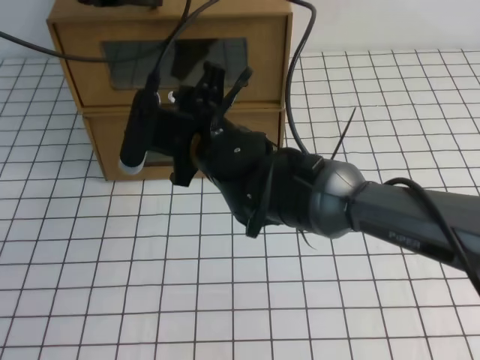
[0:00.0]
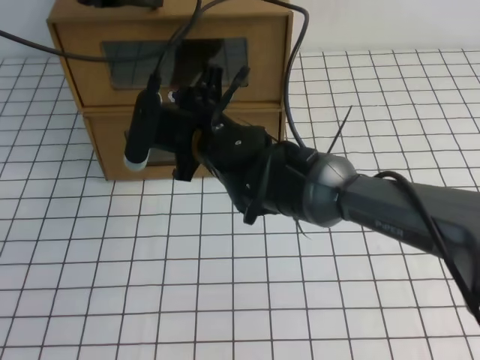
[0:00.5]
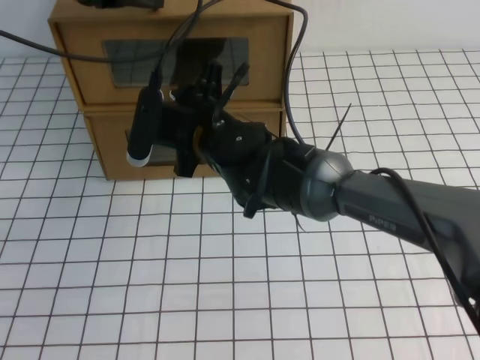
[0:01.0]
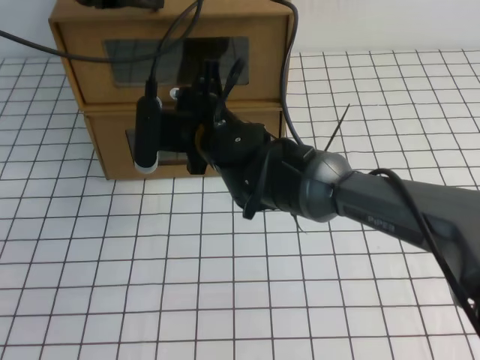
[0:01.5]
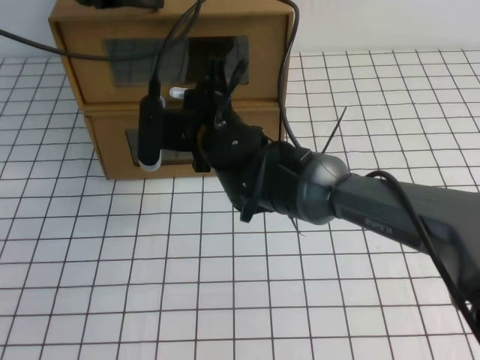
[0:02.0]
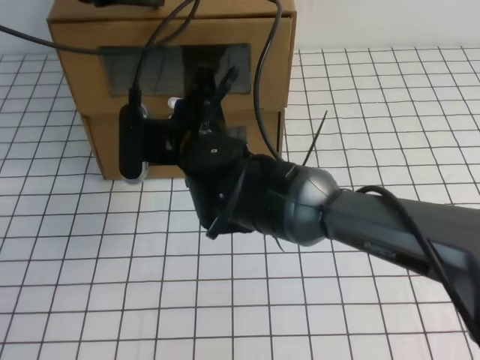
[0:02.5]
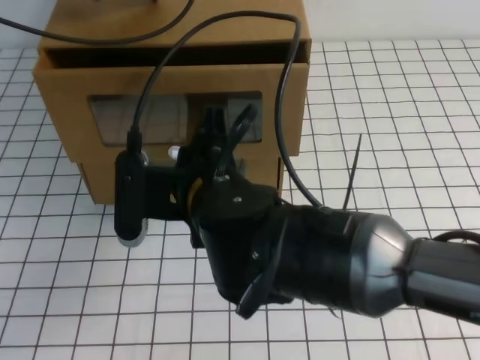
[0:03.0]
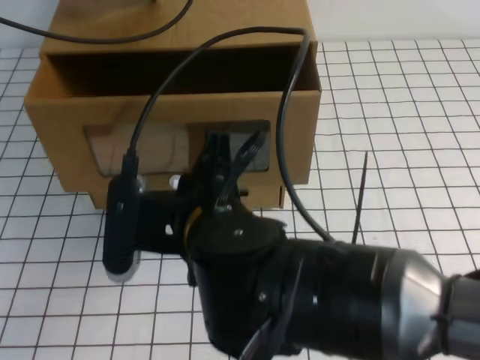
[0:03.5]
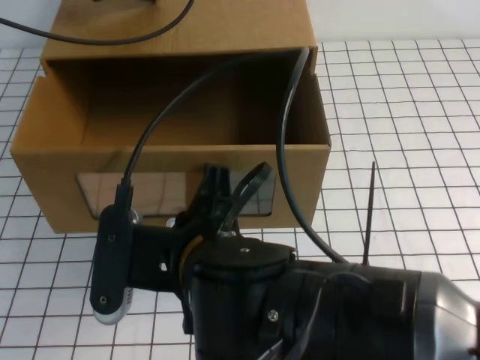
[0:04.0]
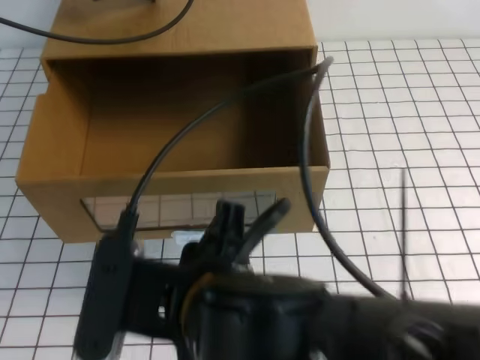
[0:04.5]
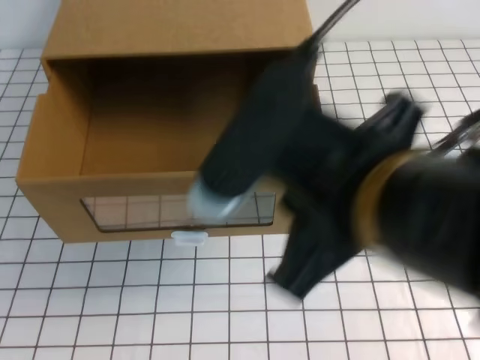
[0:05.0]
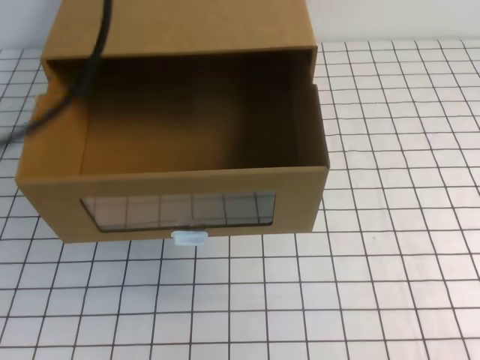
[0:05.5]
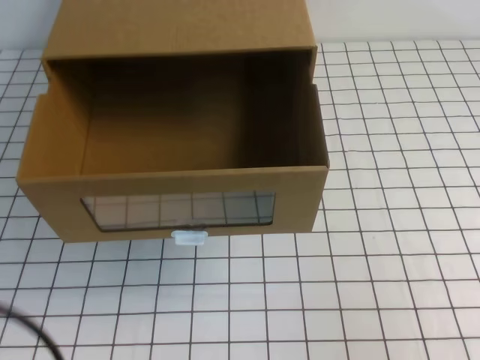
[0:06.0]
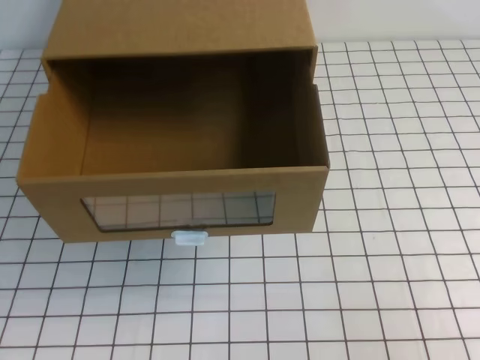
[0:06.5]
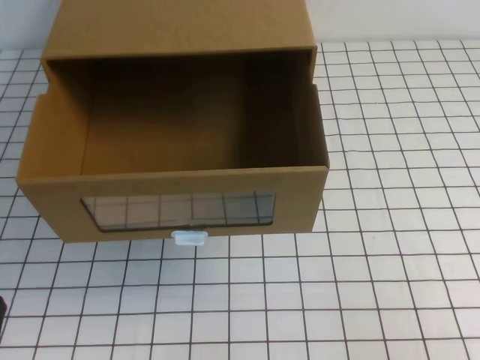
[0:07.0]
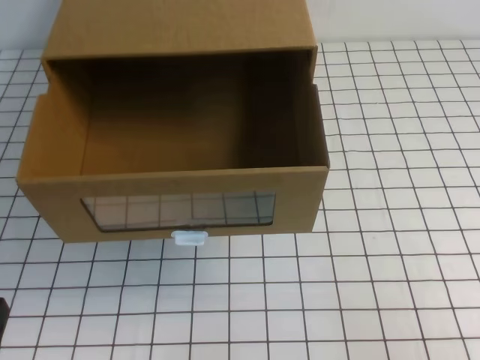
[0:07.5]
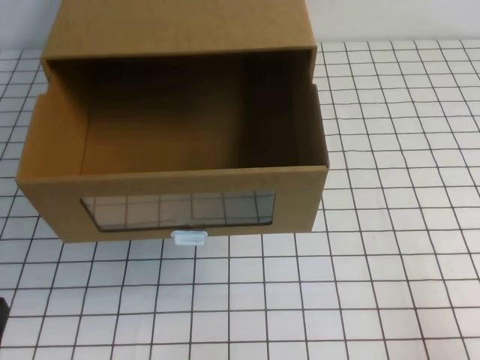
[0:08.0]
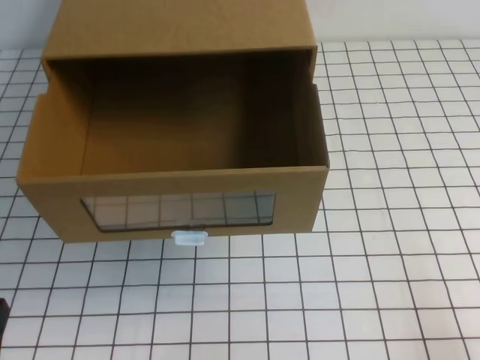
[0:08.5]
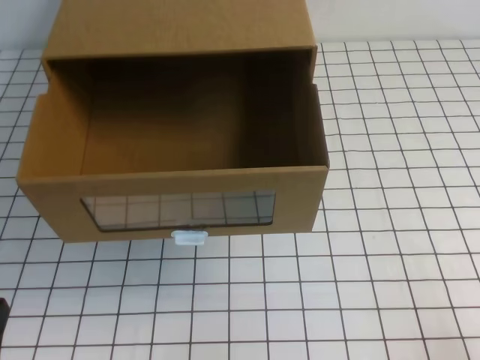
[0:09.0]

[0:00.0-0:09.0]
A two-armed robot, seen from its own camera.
Task of the whole recording: open the shoebox on the white tablecloth.
0:00.0 to 0:02.0: The right gripper closes up.
0:02.0 to 0:04.5: The right gripper moves backward, approximately 25 cm, and opens up.
0:04.5 to 0:07.0: The left gripper goes about 40 cm backward and downward, while the right gripper moves to the right, approximately 30 cm, and closes.

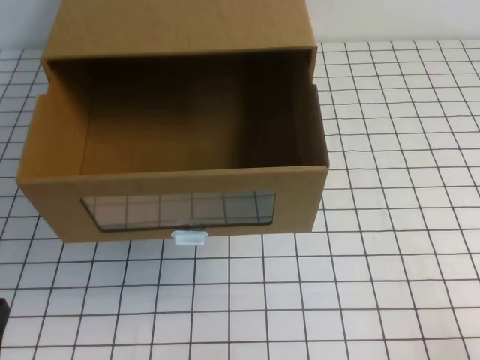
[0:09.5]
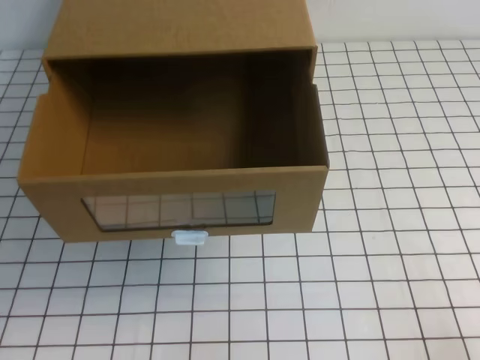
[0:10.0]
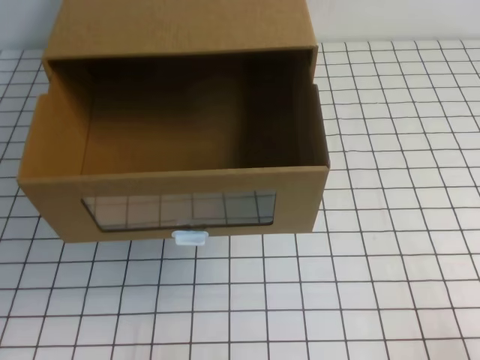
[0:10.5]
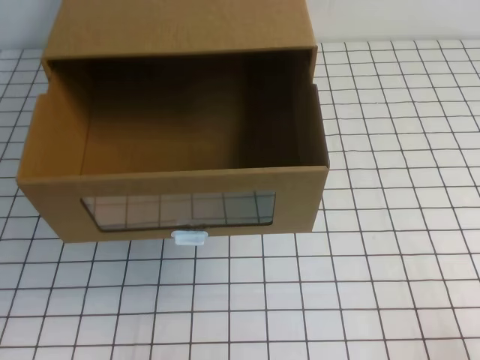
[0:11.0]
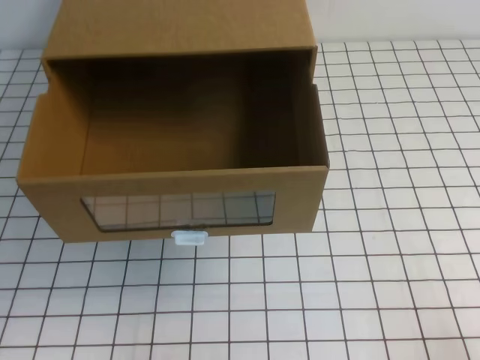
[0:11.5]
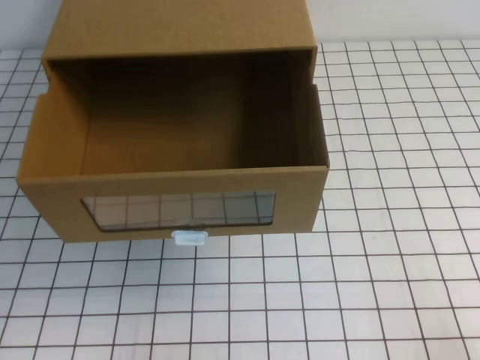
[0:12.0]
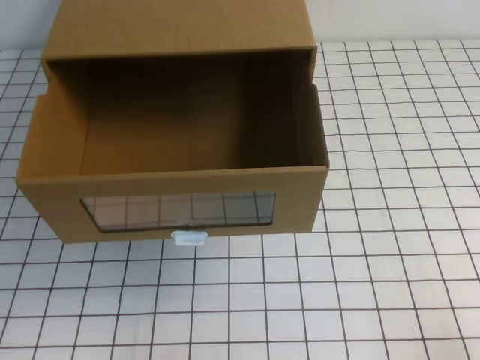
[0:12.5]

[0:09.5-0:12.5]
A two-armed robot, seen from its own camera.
Task of the whole recording: open the shoebox on the white tablecloth.
0:11.0 to 0:12.5: Both grippers stay about where they are.

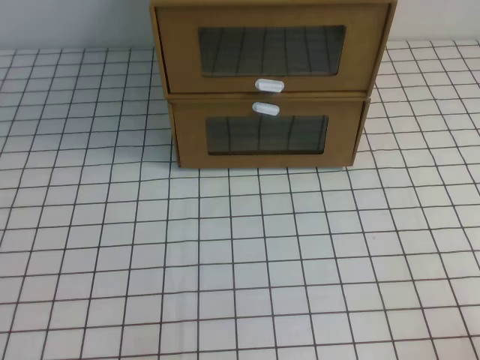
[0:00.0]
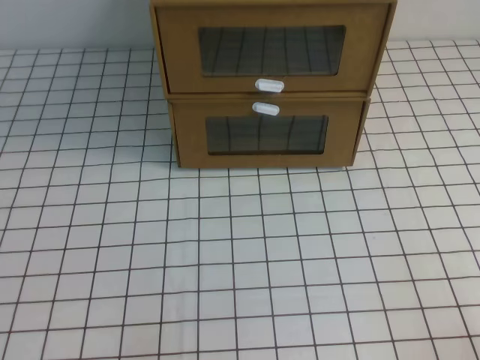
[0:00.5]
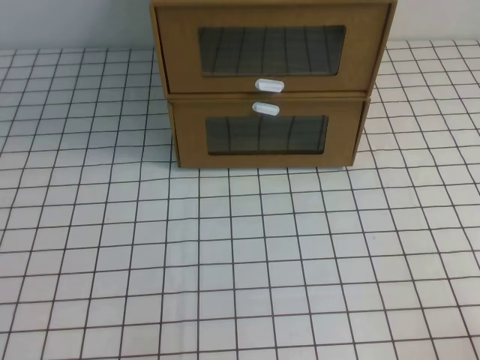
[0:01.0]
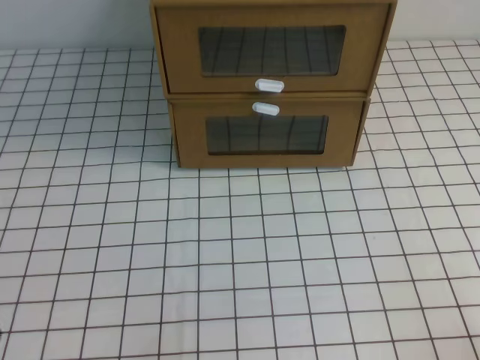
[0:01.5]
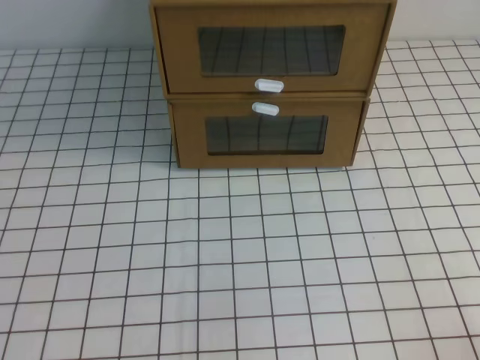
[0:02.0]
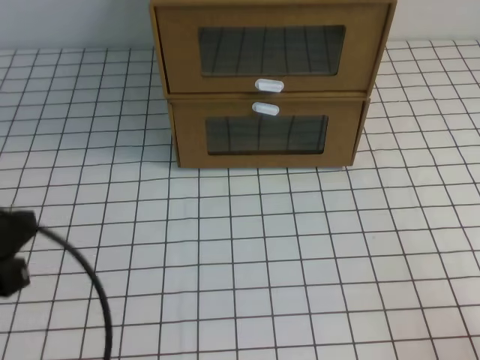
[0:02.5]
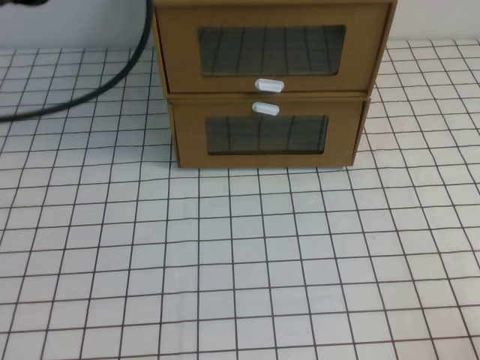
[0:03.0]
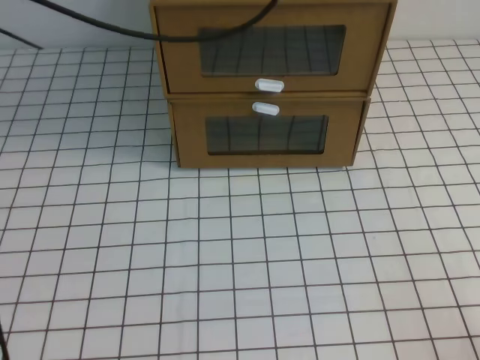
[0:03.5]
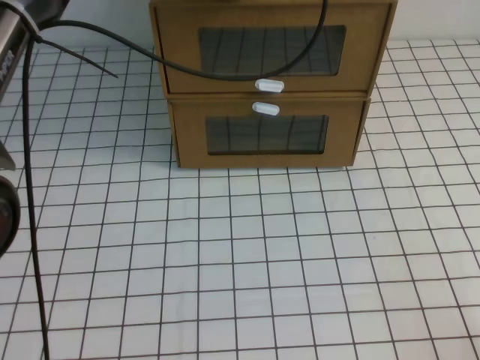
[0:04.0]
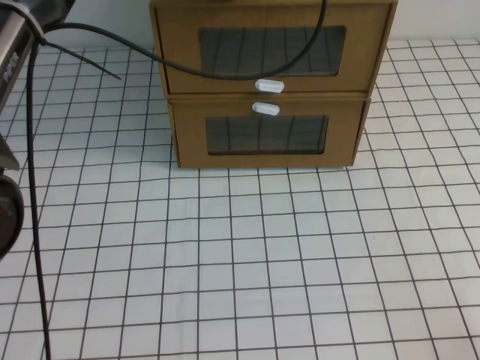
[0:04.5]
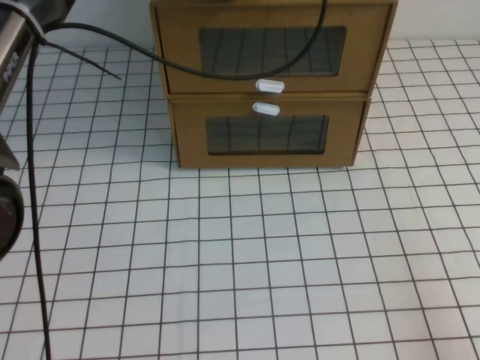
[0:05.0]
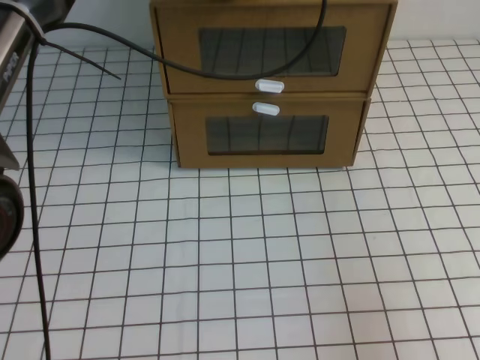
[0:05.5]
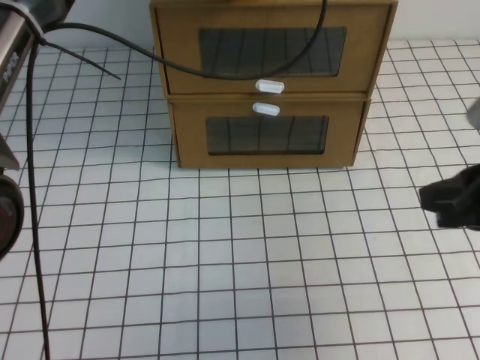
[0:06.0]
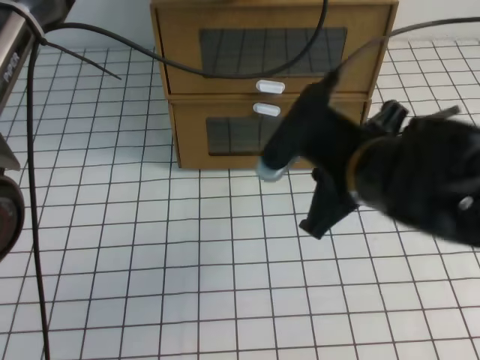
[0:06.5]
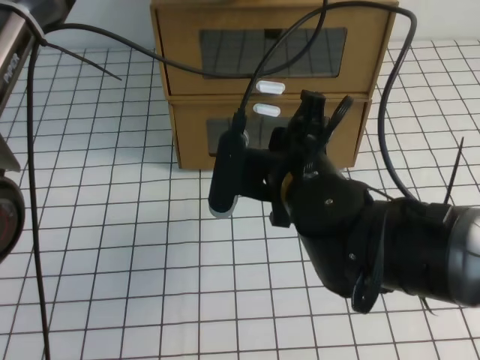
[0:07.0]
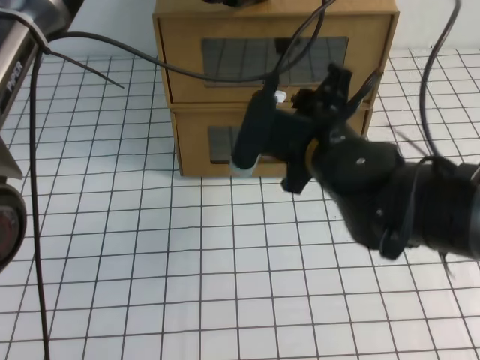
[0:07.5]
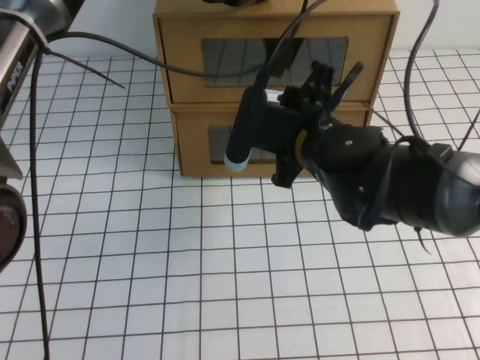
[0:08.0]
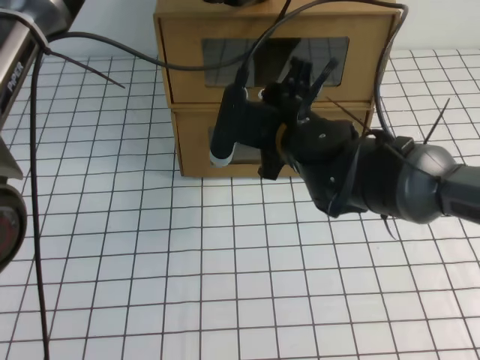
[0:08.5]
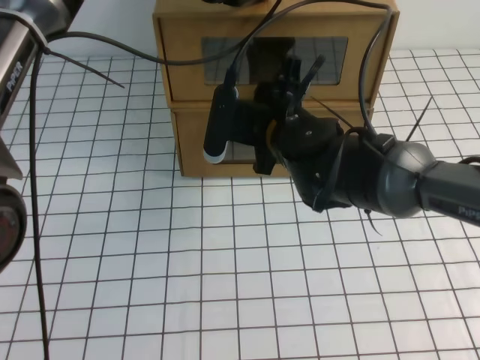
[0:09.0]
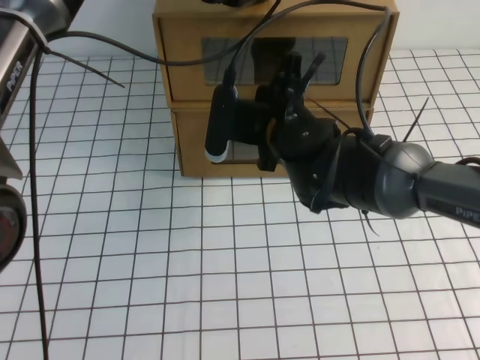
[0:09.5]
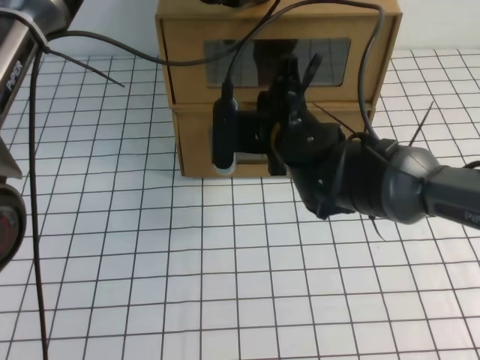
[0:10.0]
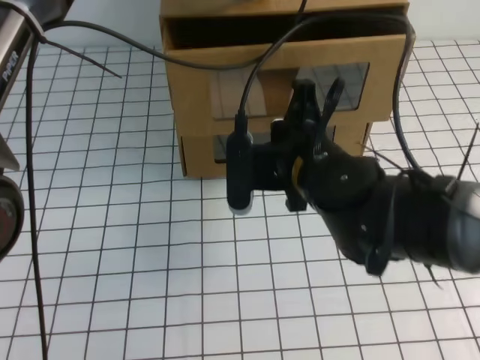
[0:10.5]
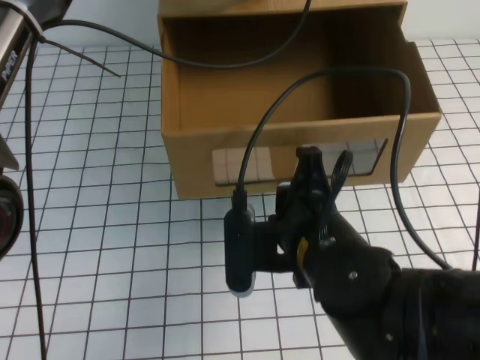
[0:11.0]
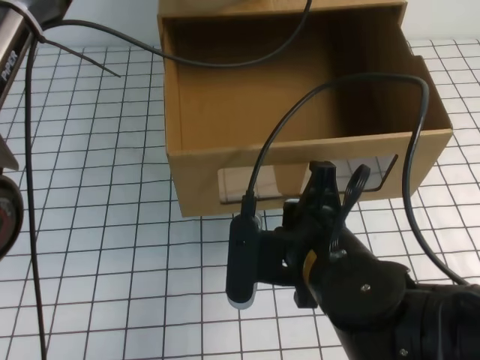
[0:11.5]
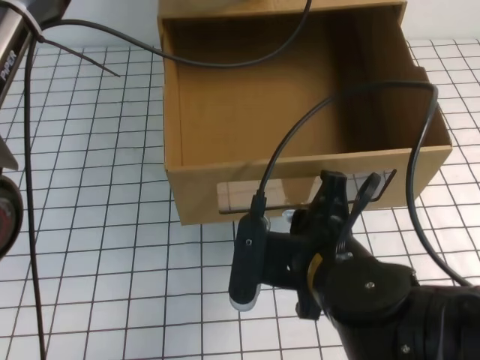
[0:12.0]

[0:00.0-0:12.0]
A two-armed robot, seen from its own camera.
Task of the whole recording: open the shoebox on the white tablecloth.
0:02.0 to 0:04.0: The left gripper shifts about 50 cm forward, to the right and upward.
0:04.0 to 0:06.0: The right gripper goes some 20 cm upward, forward and to the left.
0:06.0 to 0:08.0: The right gripper shifts roughly 25 cm to the left and forward, and opens up.
0:08.0 to 0:10.0: The right gripper closes.
0:10.0 to 0:12.0: The right gripper travels backward by some 15 cm.

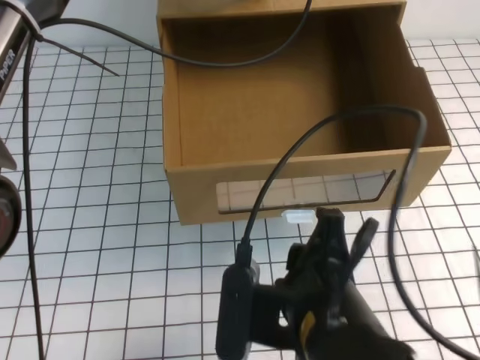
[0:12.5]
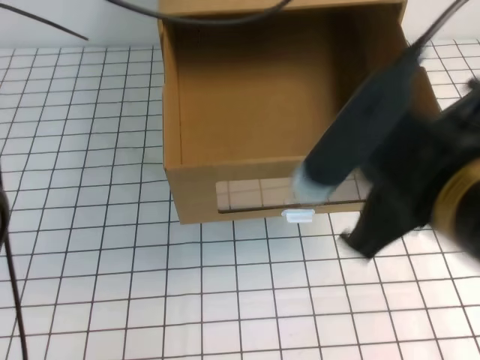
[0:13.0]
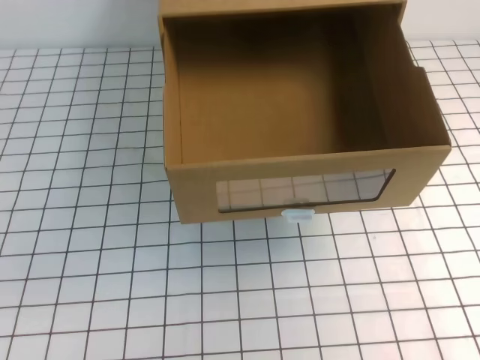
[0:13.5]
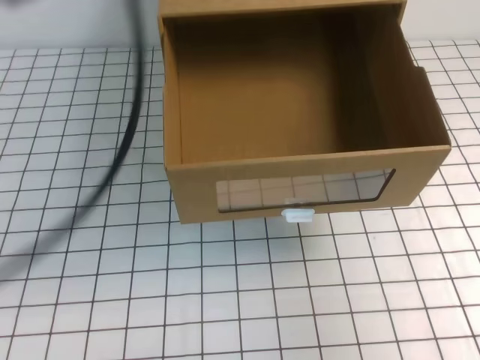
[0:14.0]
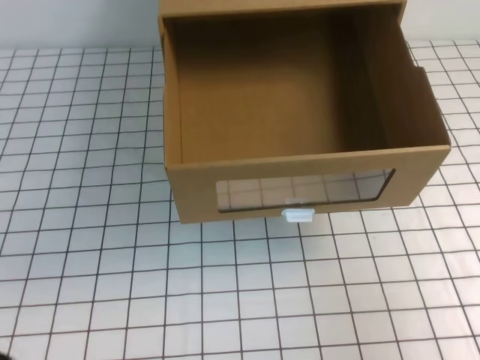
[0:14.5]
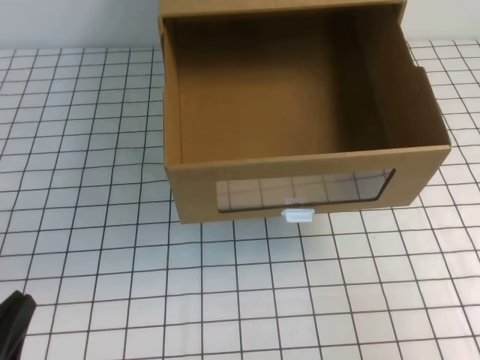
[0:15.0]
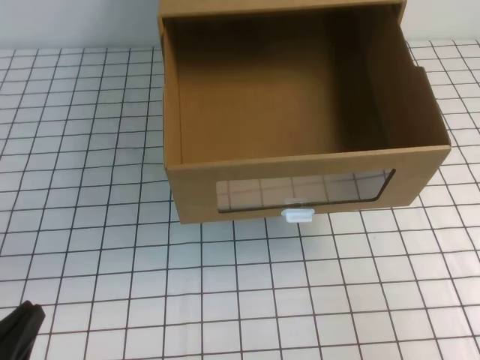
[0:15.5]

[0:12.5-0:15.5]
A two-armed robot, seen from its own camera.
Task of the whole recording: open the shoebox on the white tablecloth.
0:12.5 to 0:14.0: The left gripper goes about 30 cm backward, to the left and upward. Meanwhile the right gripper travels to the right and upward by roughly 25 cm, and closes its fingers.
0:14.0 to 0:15.5: The right gripper heads downward, covering approximately 10 cm, while the left gripper travels downward and backward by roughly 35 cm.
